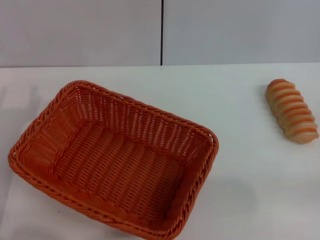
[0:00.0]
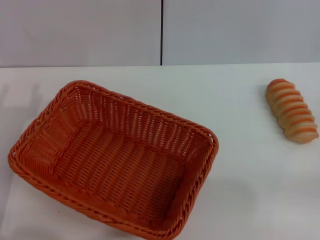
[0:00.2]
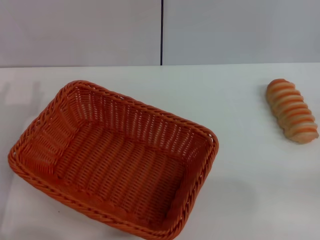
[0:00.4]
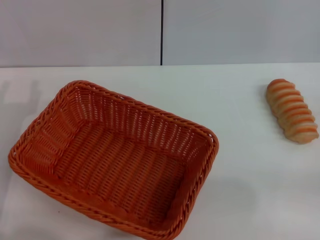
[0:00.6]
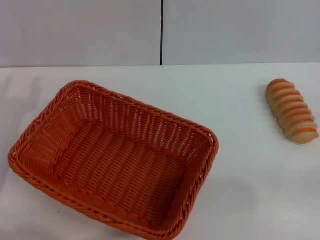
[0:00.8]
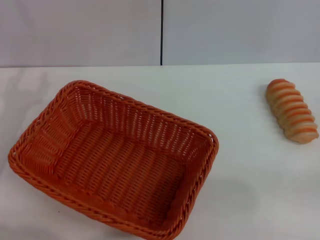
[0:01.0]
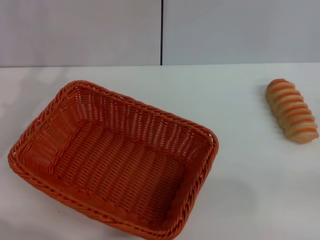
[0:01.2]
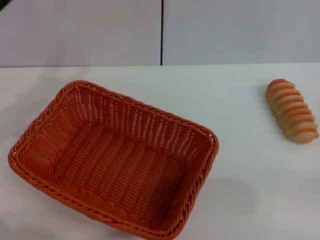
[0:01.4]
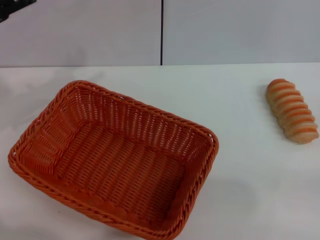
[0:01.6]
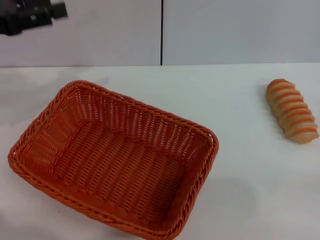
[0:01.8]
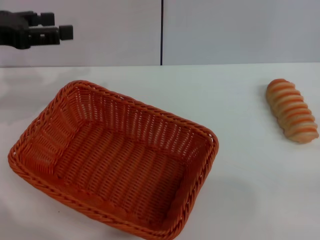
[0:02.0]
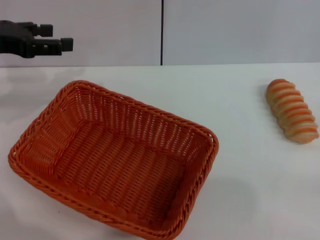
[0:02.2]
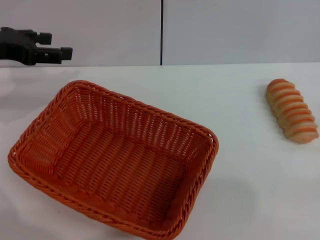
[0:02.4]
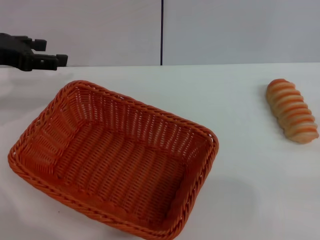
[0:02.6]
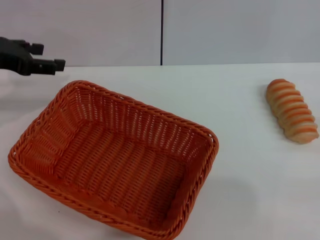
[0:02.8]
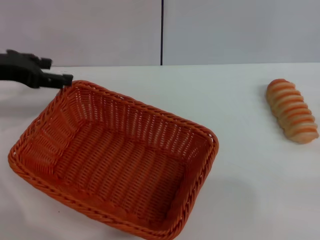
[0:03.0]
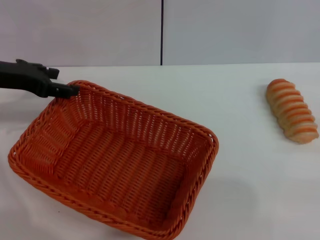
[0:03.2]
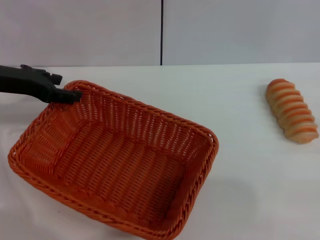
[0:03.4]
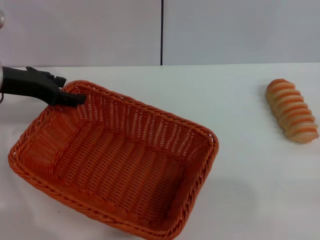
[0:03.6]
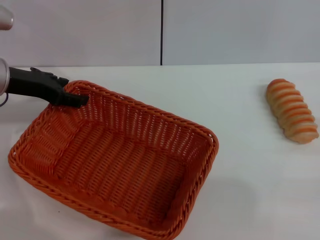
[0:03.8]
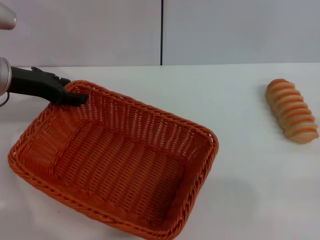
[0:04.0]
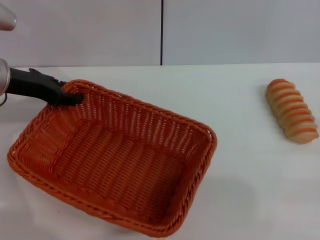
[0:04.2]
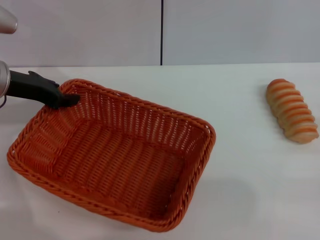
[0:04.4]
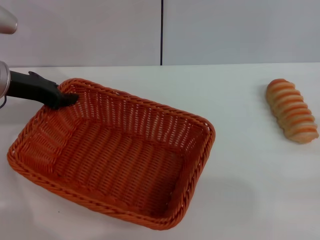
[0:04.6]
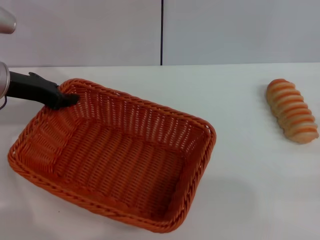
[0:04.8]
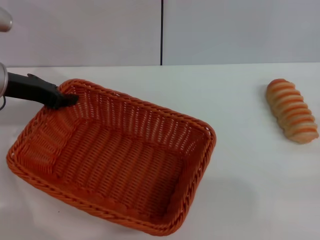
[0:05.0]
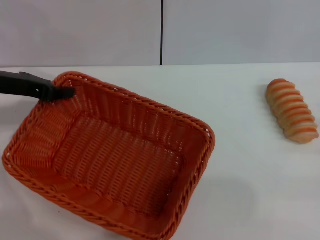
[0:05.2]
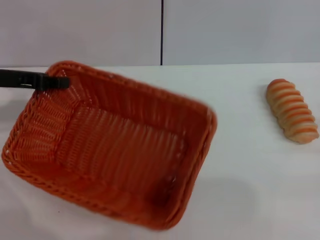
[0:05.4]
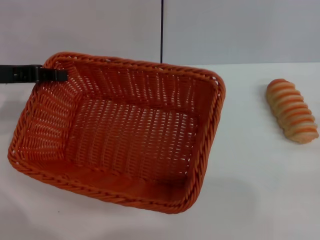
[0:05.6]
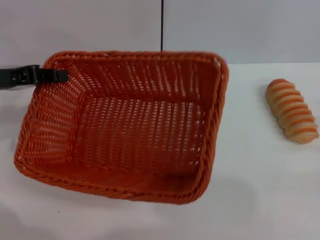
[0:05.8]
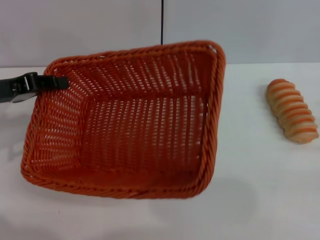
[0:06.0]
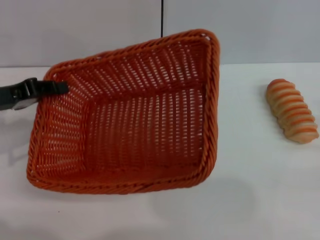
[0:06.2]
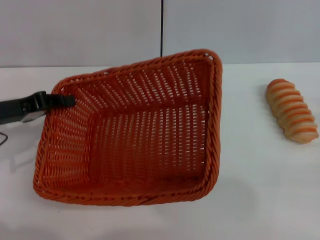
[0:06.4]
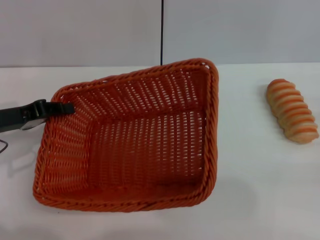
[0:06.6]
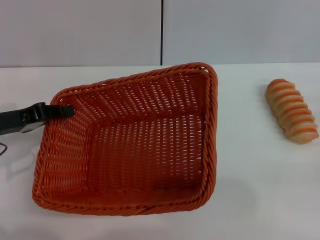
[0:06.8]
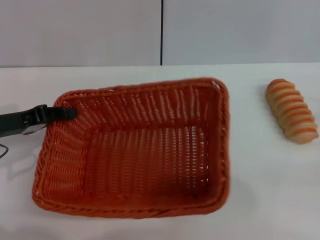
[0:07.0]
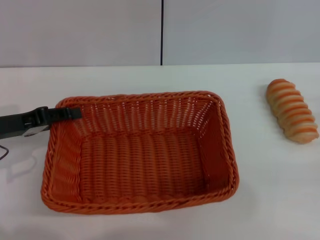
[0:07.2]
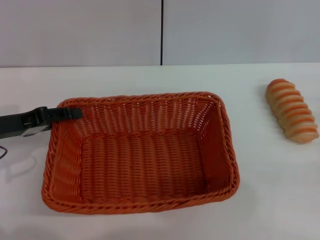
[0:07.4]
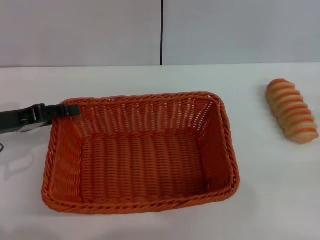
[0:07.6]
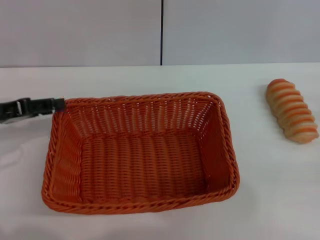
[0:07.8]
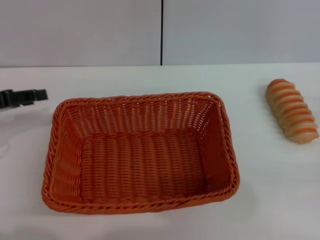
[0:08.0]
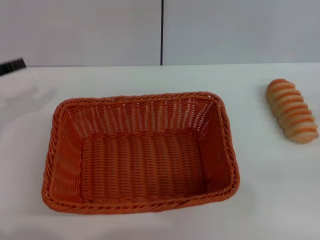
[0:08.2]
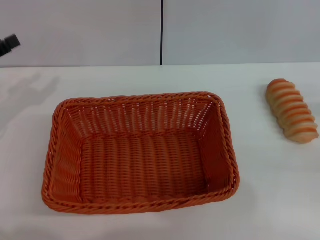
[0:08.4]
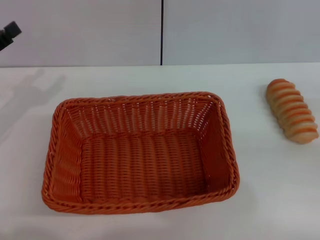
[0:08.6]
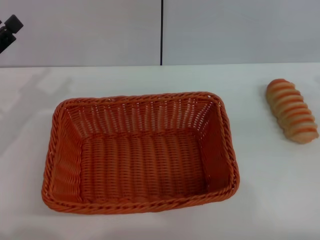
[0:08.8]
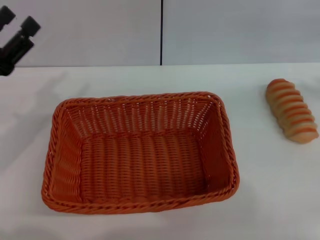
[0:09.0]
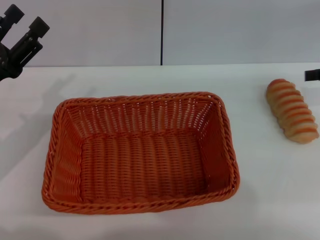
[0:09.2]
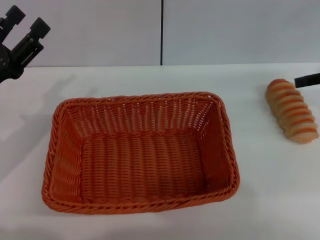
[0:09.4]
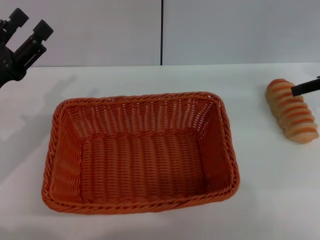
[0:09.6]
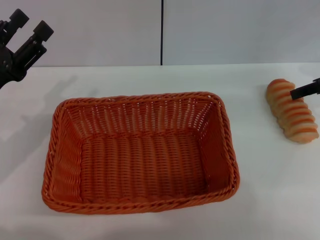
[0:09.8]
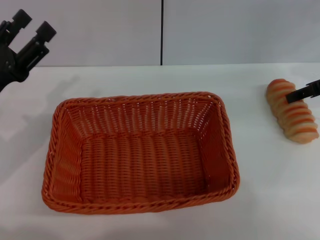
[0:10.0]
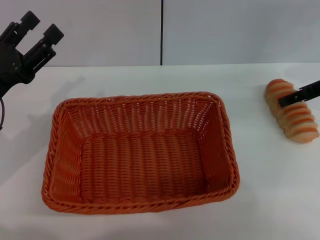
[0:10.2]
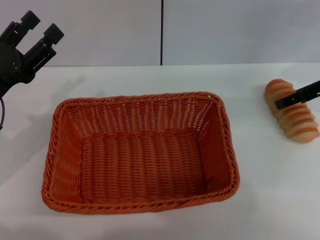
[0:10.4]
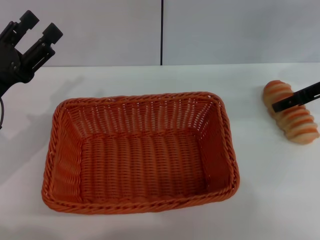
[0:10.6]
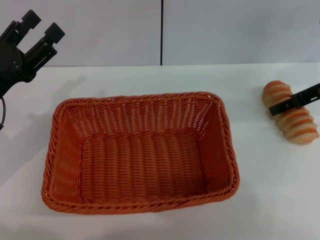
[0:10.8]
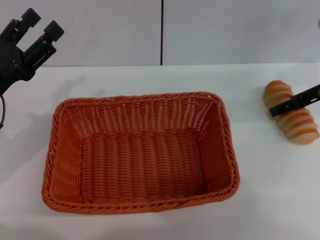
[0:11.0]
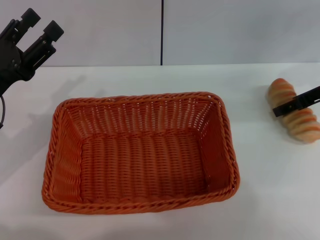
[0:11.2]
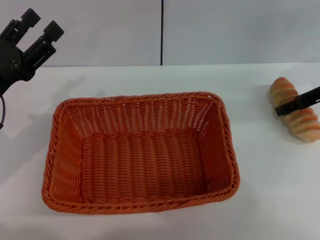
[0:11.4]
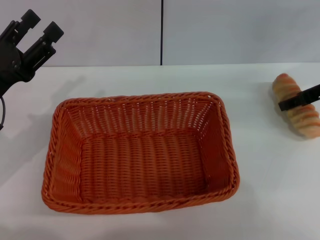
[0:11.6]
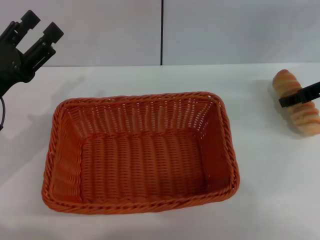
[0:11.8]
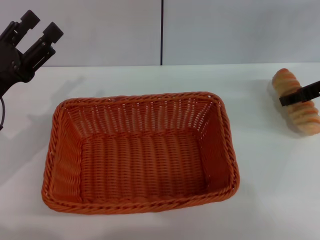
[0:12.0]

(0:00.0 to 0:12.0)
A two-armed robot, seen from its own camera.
Step, 0:00.0 - 0:05.8: Pick up the light basket with the left gripper.
Step, 0:06.0 - 0:07.8: Place the light basket in the center of view with the left gripper.
0:00.0 - 0:01.6: The left gripper shifts approximately 15 cm upward and forward.
0:03.0 - 0:04.4: The left gripper closes.
0:04.4 - 0:06.0: The left gripper goes about 5 cm backward, and closes up.
0:06.0 - 0:07.6: The left gripper opens.
0:07.6 - 0:09.0: The left gripper opens its fingers.
0:09.0 - 0:10.4: The right gripper heads to the left and forward, covering roughly 10 cm.
0:10.4 - 0:12.0: The two grippers keep their place.

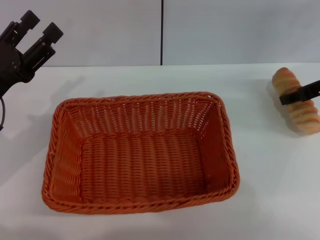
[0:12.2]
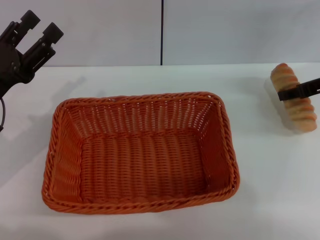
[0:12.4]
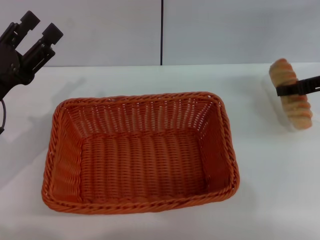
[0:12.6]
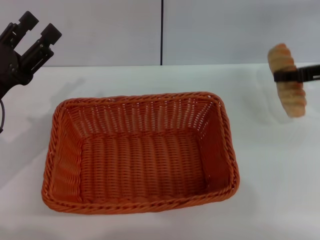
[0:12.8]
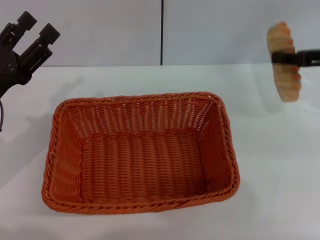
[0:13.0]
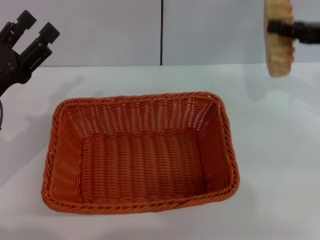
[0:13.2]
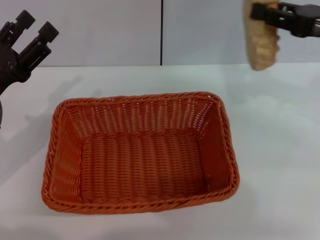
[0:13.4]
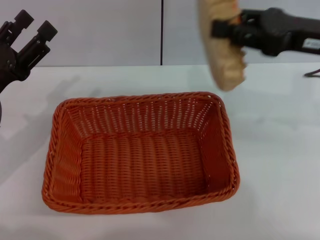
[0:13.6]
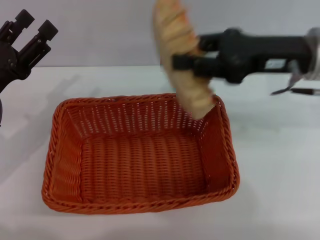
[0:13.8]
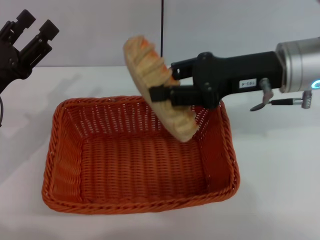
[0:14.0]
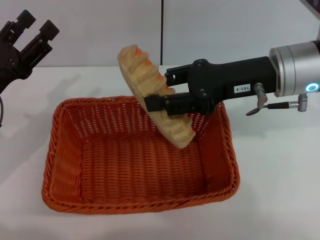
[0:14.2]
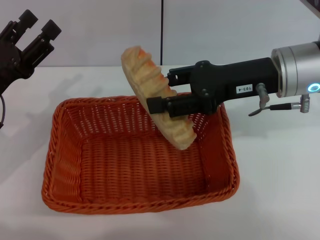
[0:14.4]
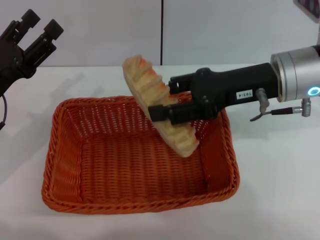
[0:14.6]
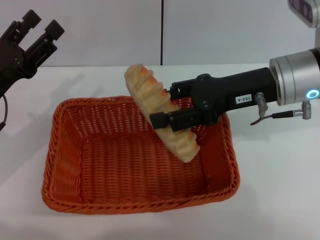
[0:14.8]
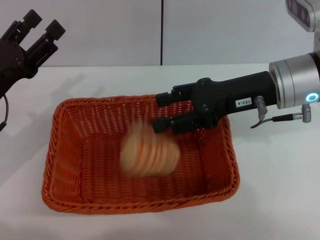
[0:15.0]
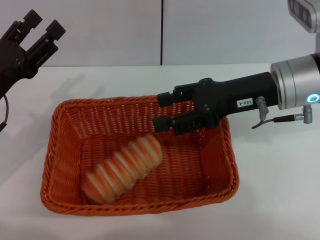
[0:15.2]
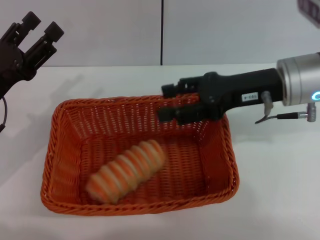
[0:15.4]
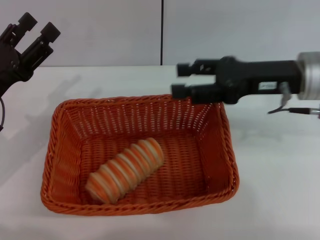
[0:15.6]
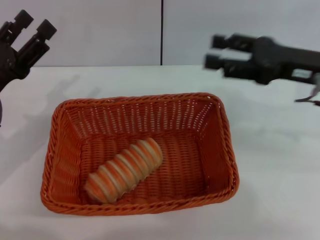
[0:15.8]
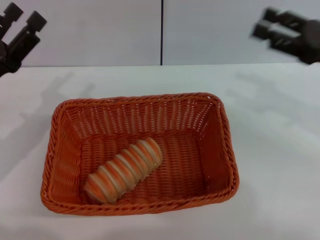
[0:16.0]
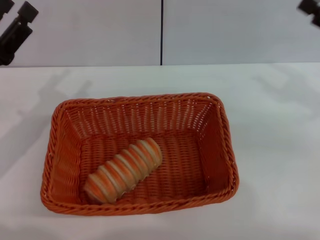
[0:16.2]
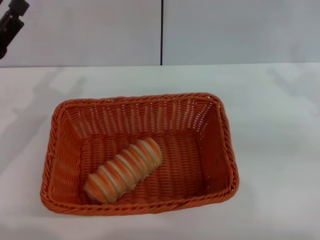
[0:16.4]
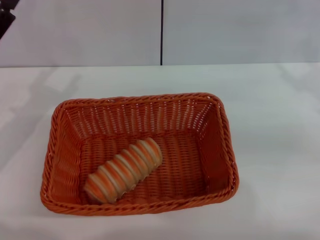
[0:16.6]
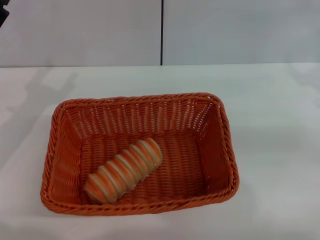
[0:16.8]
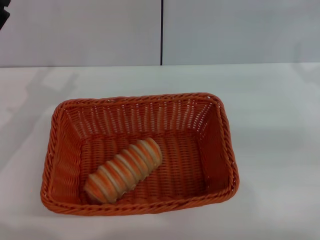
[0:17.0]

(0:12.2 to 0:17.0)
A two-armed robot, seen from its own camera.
Step, 0:12.8 - 0:15.2: Place the long bread into the light basket with the right gripper.
0:12.2 - 0:13.8: The right gripper moves to the left, backward and upward, some 15 cm, and closes up.
0:13.8 - 0:15.4: The right gripper opens.
0:15.4 - 0:17.0: The right gripper is displaced to the right by approximately 15 cm.
